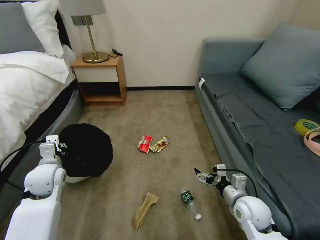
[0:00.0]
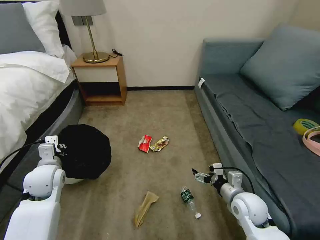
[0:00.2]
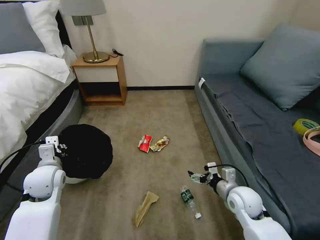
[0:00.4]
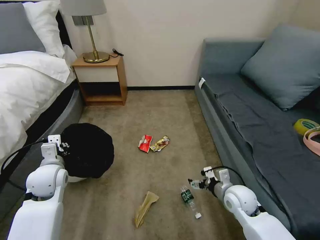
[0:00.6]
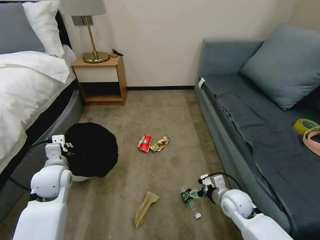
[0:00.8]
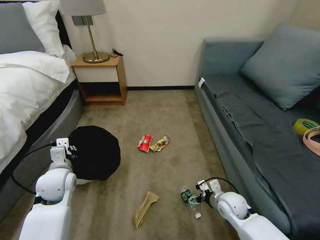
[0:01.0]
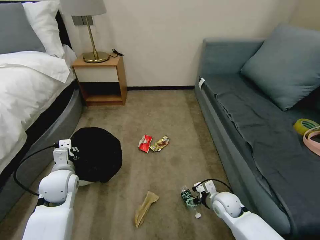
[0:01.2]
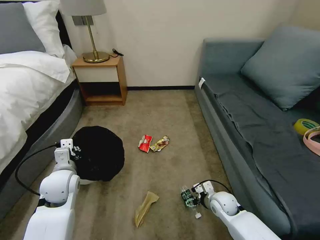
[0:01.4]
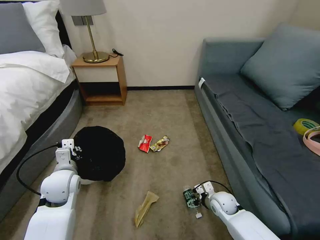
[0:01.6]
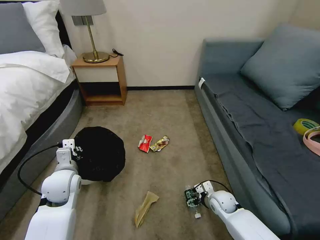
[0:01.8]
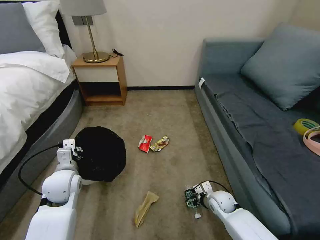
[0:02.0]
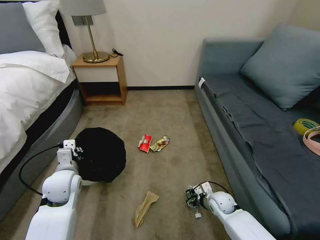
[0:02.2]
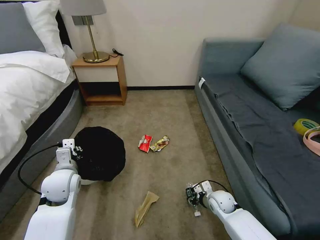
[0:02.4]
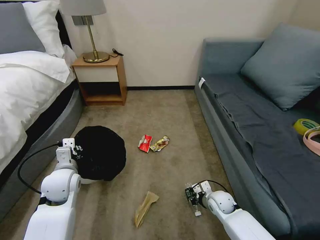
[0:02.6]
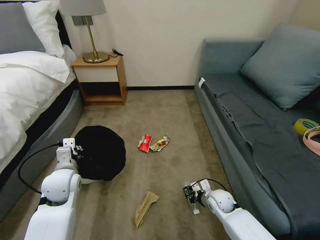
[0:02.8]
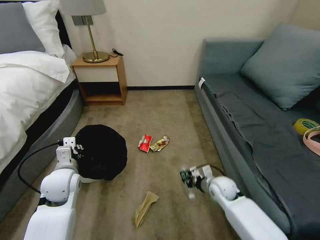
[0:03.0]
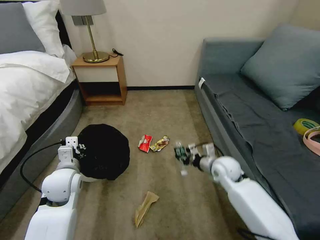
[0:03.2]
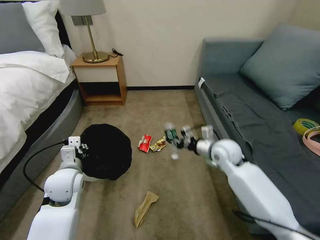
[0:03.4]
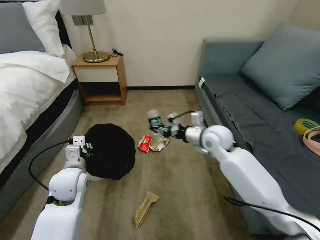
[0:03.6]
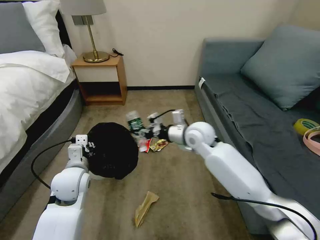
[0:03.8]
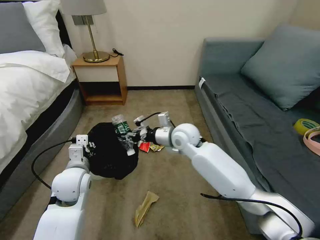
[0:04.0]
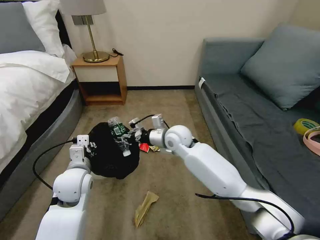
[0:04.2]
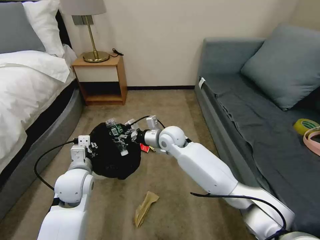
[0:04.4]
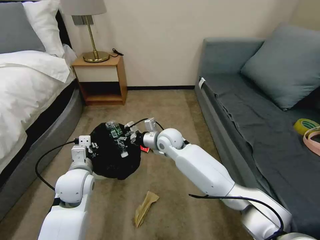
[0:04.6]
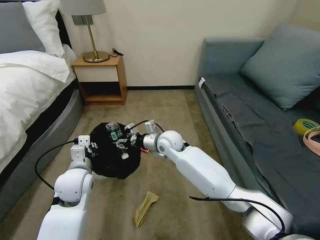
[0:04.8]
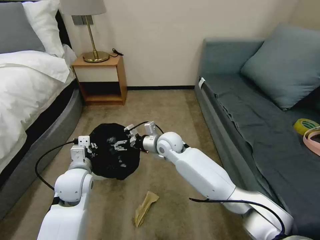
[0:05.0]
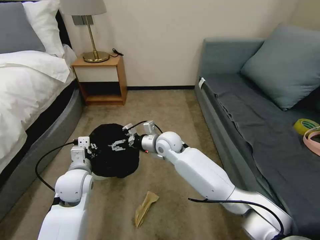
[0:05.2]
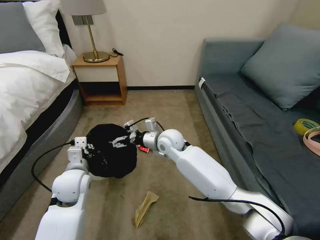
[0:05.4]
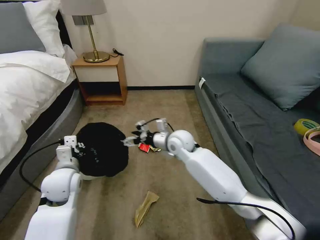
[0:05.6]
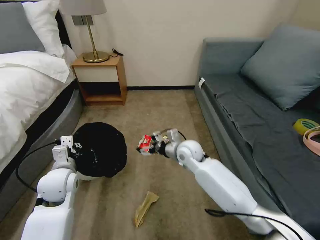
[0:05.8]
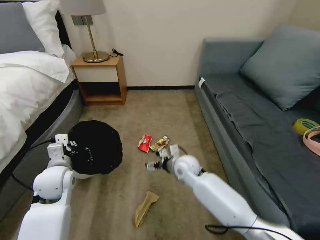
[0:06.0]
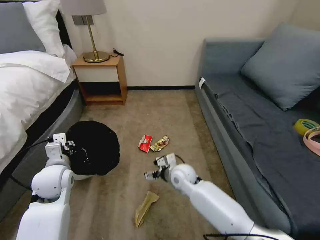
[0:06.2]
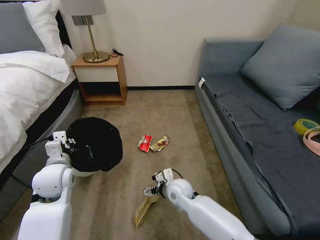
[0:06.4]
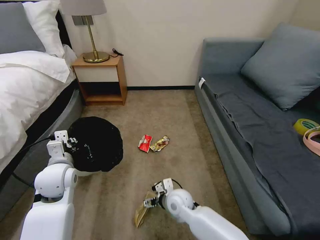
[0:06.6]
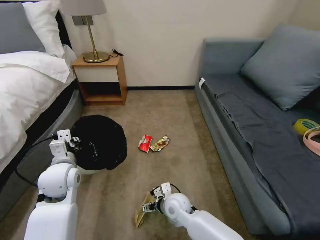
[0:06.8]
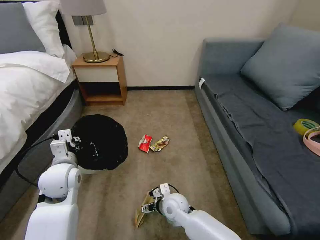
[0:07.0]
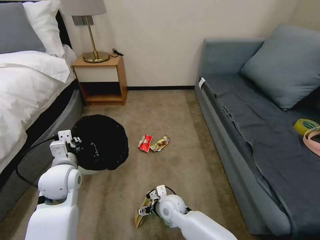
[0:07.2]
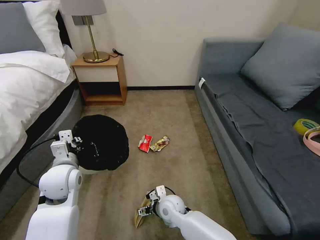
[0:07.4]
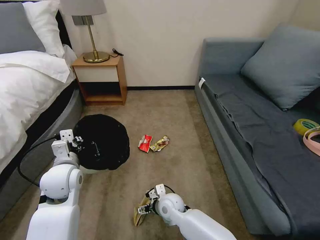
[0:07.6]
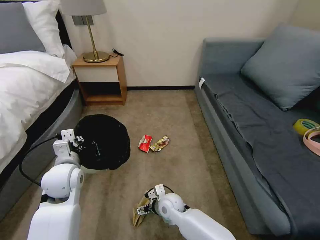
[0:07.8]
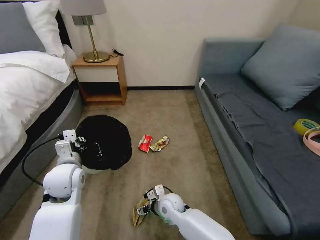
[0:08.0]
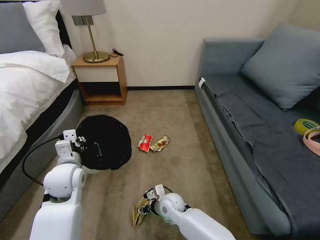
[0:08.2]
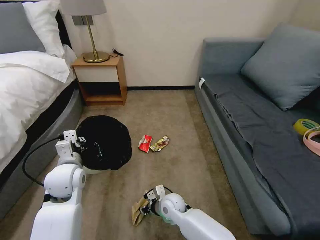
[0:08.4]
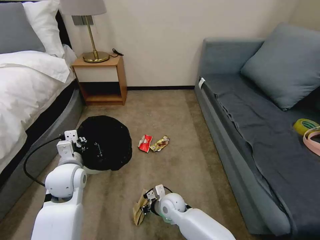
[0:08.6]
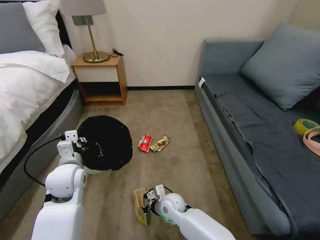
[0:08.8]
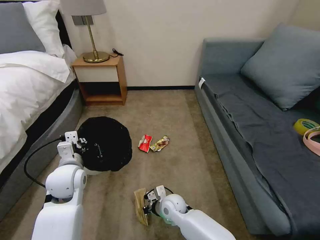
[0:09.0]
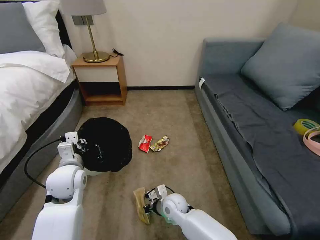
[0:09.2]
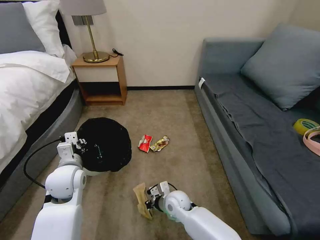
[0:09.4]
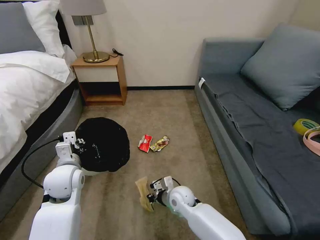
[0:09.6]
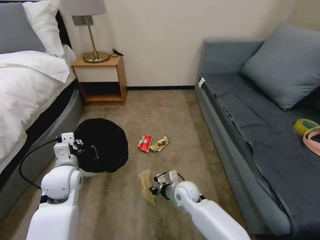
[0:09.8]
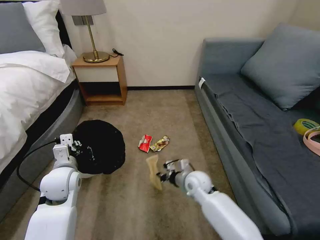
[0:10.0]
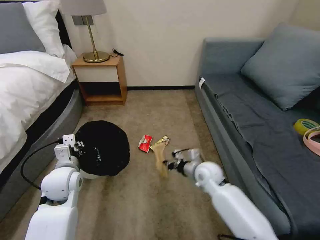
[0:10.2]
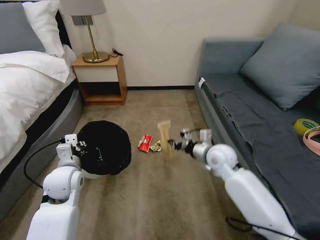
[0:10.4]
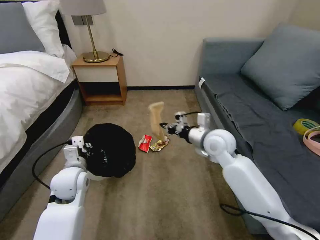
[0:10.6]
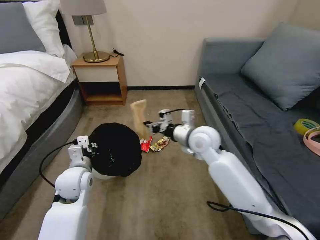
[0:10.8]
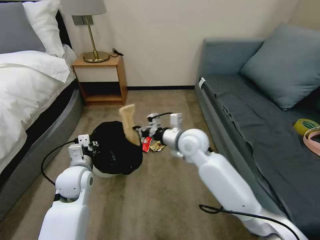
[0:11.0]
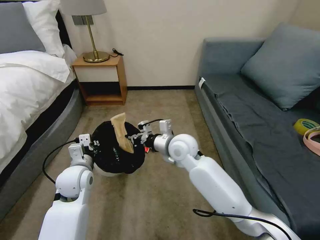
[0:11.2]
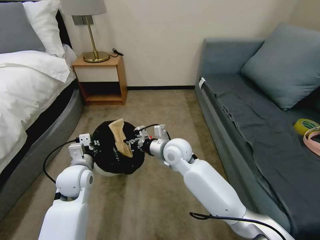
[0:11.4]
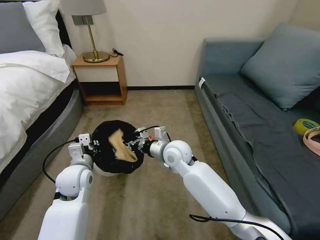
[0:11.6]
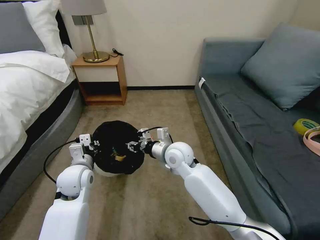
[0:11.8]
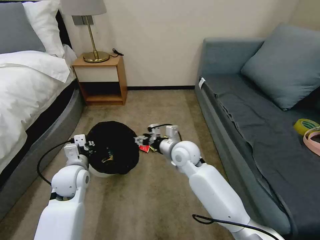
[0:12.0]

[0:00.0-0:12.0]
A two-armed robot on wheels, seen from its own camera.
Task of the whole recording: Pick up the trash bin, then pick up the garbage on the floor and place it into the trash bin.
0:00.0 to 0:01.6: The left gripper shifts some 5 cm to the right. Meanwhile the right gripper heads downward and forward, covering approximately 15 cm.
0:01.6 to 0:03.0: The right gripper goes approximately 5 cm upward, and closes its fingers.
0:03.0 to 0:04.4: The right gripper goes some 30 cm to the left, upward and forward.
0:04.4 to 0:06.0: The left gripper goes approximately 5 cm to the left, while the right gripper moves downward, backward and to the right, roughly 15 cm, and opens.
0:06.0 to 0:07.6: The right gripper goes about 15 cm downward, backward and to the left.
0:07.6 to 0:09.0: The right gripper closes its fingers.
0:09.0 to 0:10.4: The right gripper moves upward, to the right and forward, roughly 30 cm.
0:10.4 to 0:12.0: The right gripper travels to the left by roughly 15 cm, and opens up.

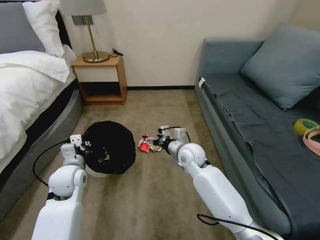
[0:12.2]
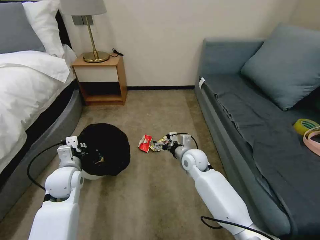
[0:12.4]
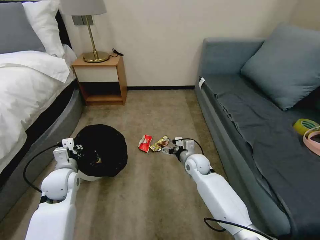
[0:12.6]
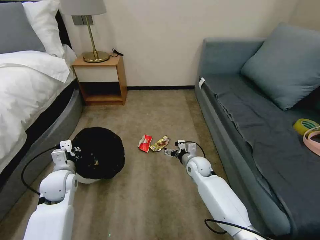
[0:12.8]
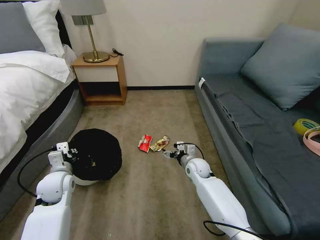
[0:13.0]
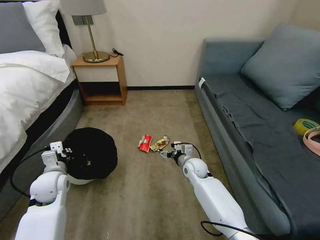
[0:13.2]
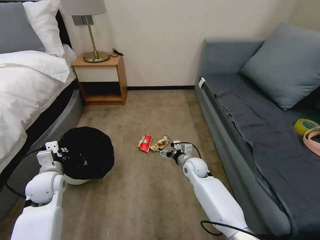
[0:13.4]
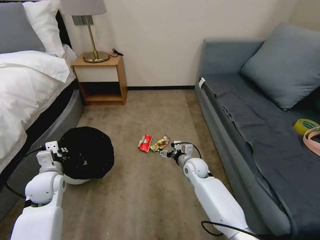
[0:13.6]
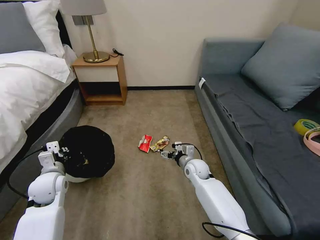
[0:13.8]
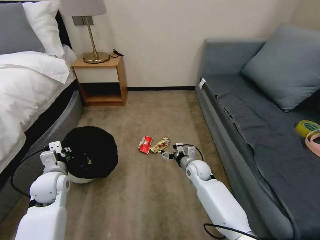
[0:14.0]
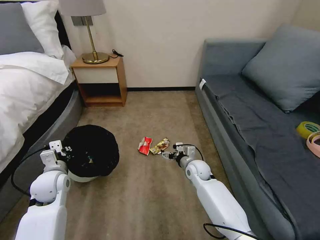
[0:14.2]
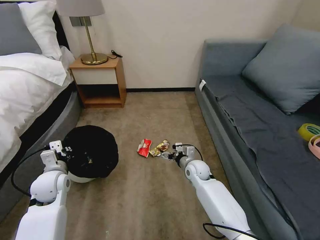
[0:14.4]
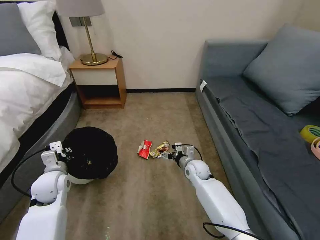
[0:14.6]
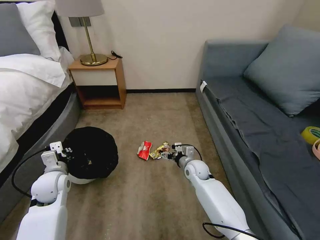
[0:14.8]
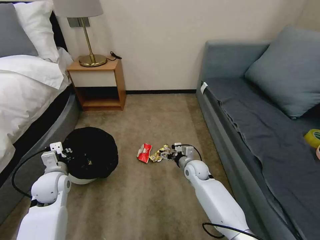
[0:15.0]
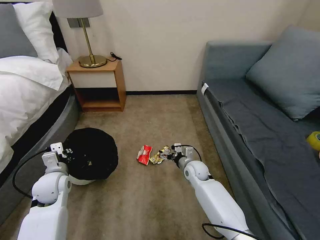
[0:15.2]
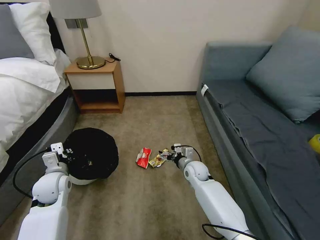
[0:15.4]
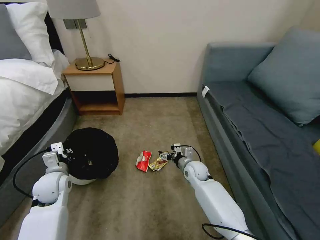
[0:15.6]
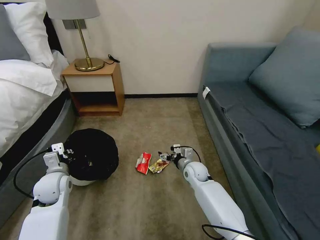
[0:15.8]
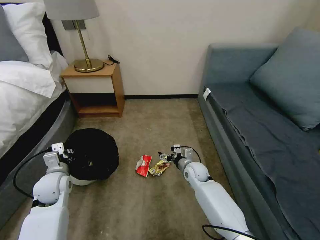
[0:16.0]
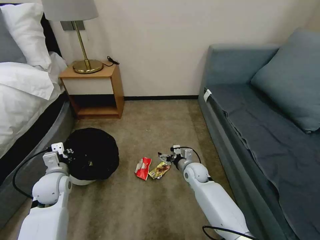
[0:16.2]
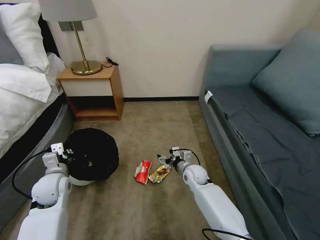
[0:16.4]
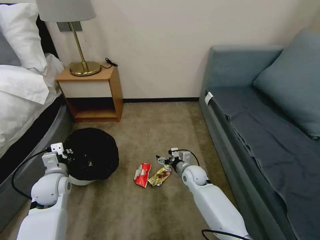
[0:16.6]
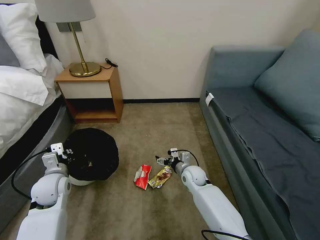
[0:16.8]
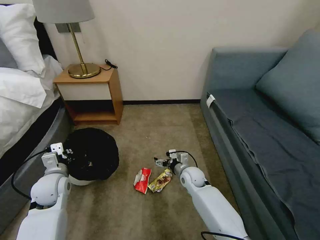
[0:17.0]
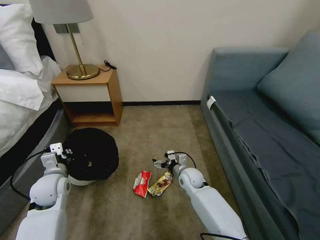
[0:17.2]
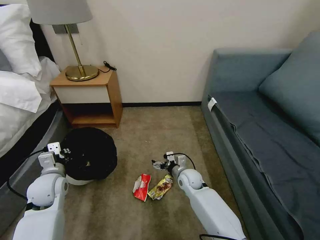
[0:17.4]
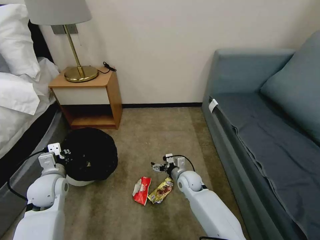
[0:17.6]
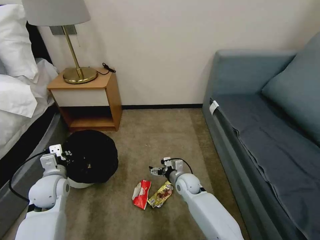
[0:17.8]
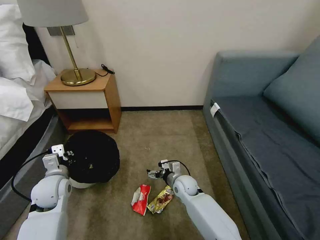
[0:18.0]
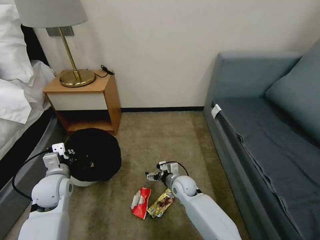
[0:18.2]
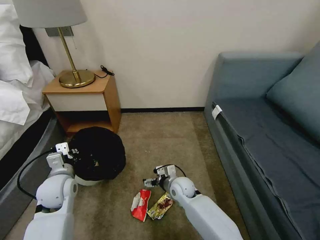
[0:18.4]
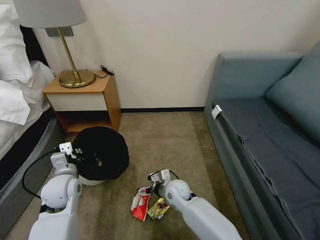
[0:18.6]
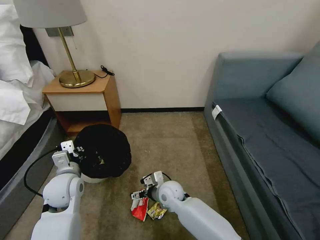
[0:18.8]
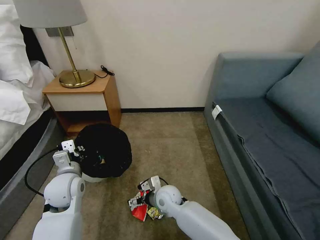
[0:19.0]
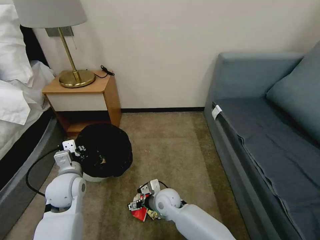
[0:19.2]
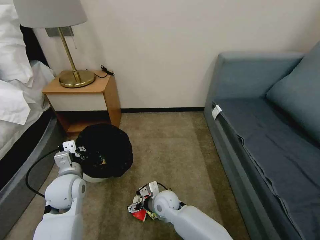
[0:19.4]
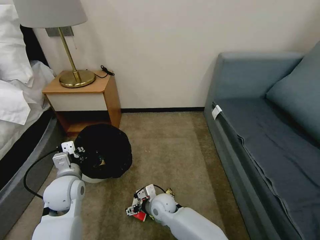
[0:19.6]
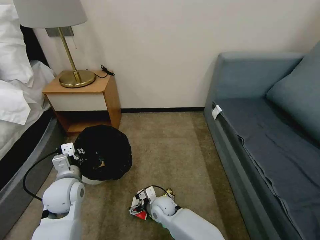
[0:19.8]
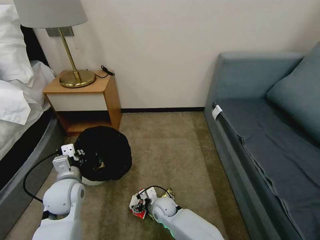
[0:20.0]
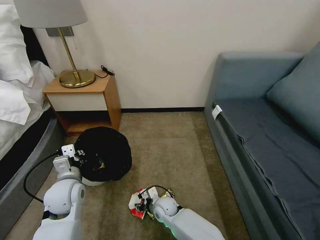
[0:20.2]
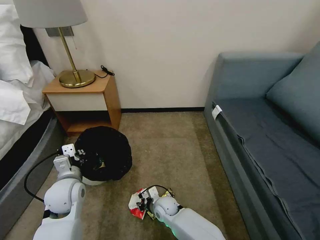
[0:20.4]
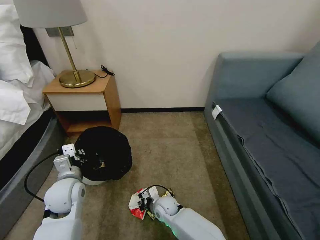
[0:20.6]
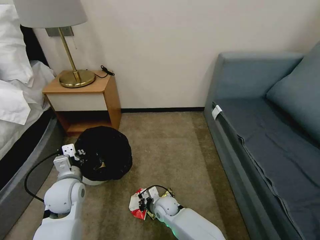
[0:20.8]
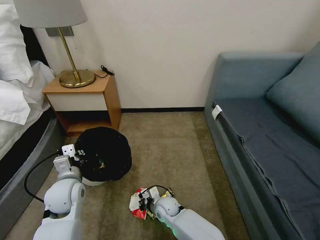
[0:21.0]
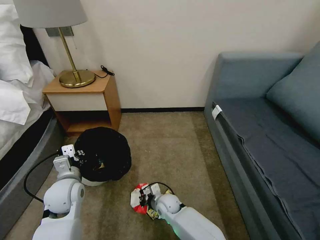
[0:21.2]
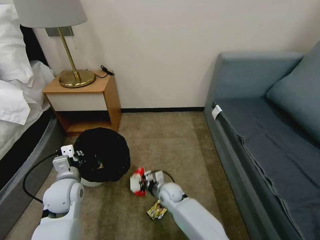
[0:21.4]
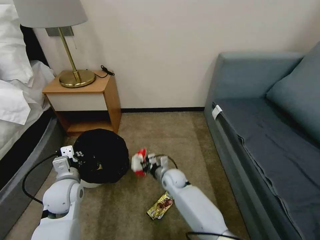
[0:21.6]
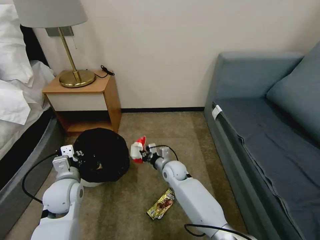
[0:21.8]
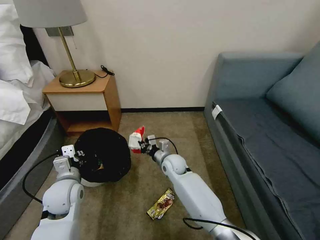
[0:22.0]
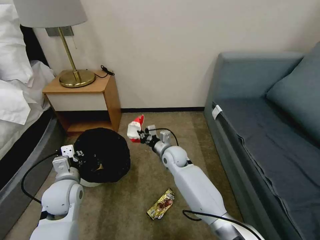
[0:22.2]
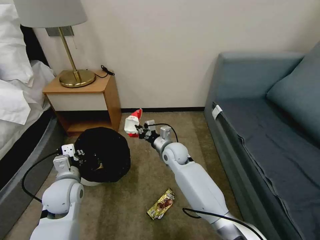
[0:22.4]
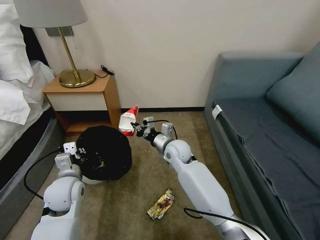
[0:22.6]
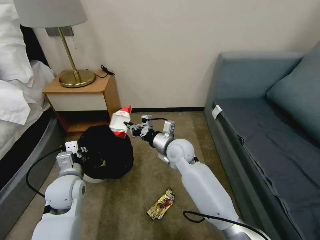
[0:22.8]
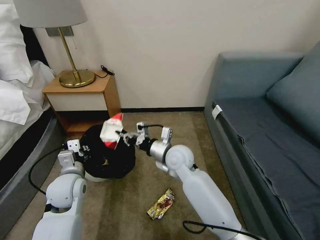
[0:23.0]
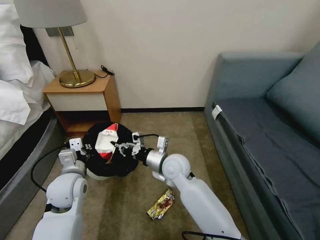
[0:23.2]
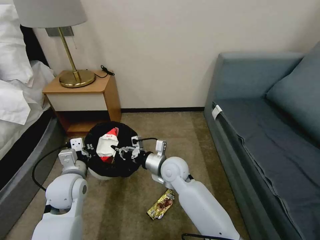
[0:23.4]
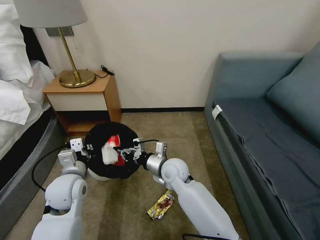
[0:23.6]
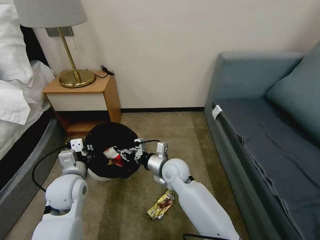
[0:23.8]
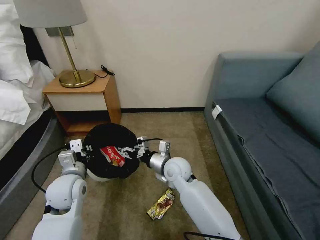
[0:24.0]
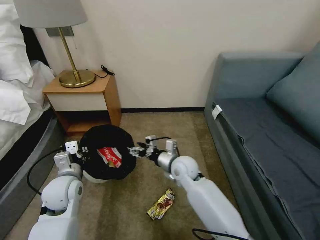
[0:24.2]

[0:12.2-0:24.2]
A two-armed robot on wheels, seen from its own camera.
Task of the whole recording: Pick up the trash bin, then pick up the garbage on the floor and place it into the trash bin.
0:12.2 to 0:13.8: The left gripper travels to the left by roughly 5 cm; the right gripper goes some 10 cm downward.
0:13.8 to 0:15.2: Both grippers stay put.
0:16.6 to 0:18.2: The right gripper moves roughly 5 cm.
0:18.2 to 0:19.8: The right gripper travels to the left and backward by roughly 10 cm; the left gripper moves to the right, about 5 cm.
0:19.8 to 0:21.2: The right gripper closes its fingers.
0:21.2 to 0:22.6: The right gripper moves upward and forward, approximately 25 cm.
0:22.6 to 0:24.2: The right gripper shifts roughly 5 cm backward, and opens up.
